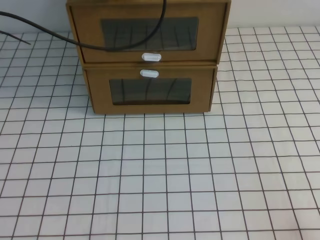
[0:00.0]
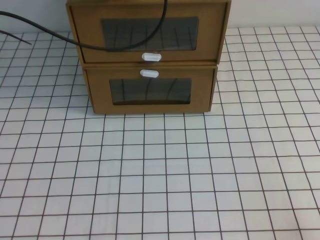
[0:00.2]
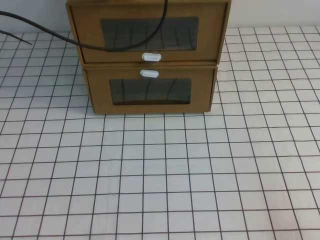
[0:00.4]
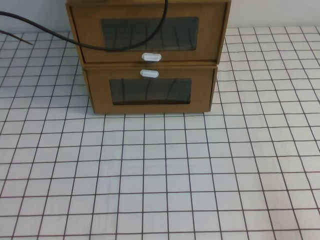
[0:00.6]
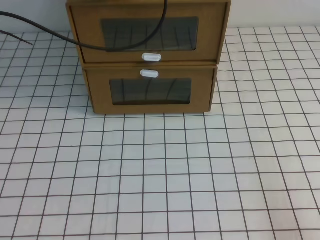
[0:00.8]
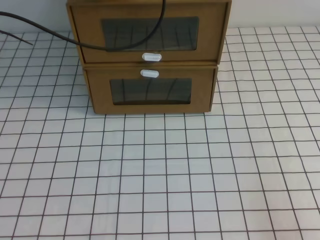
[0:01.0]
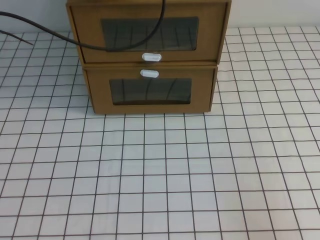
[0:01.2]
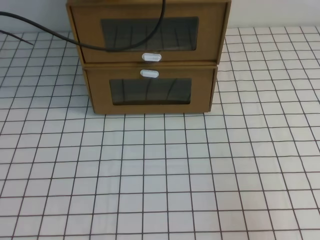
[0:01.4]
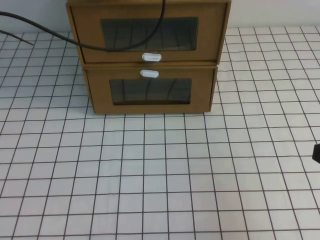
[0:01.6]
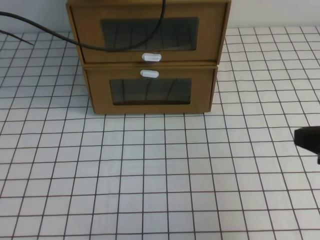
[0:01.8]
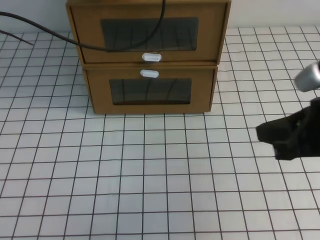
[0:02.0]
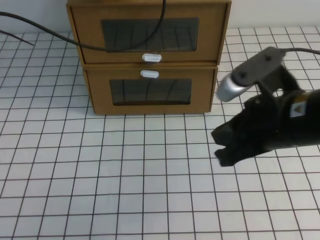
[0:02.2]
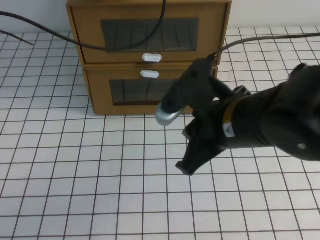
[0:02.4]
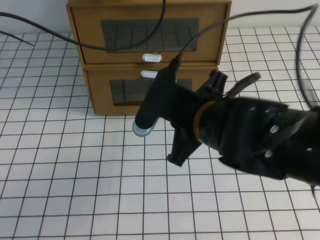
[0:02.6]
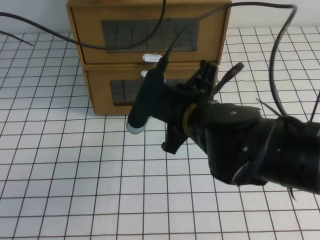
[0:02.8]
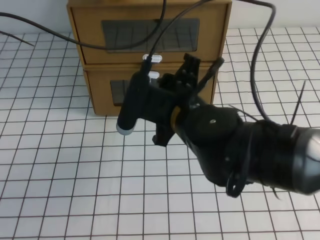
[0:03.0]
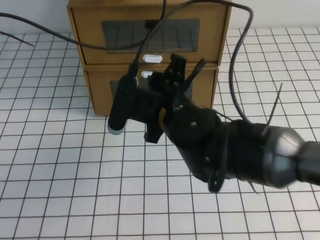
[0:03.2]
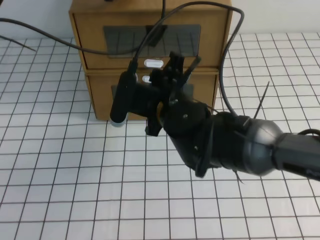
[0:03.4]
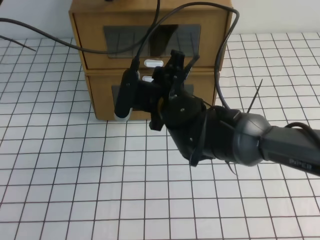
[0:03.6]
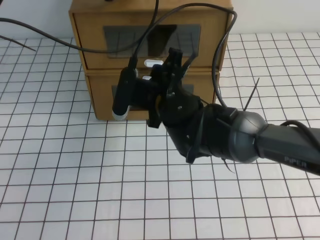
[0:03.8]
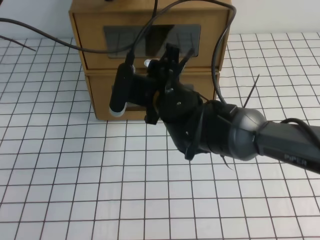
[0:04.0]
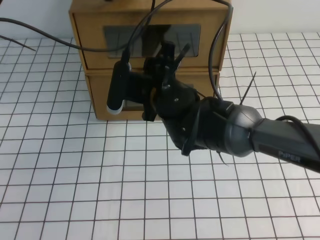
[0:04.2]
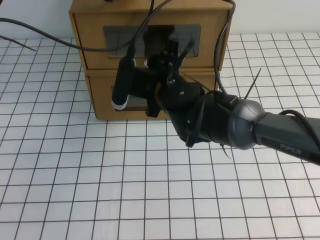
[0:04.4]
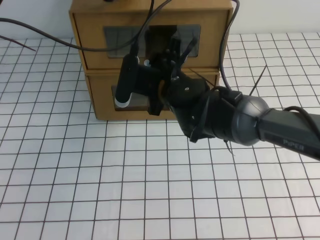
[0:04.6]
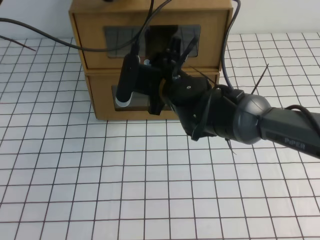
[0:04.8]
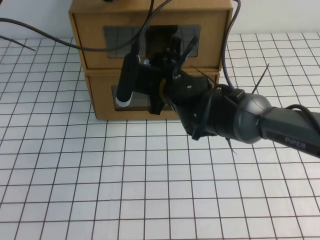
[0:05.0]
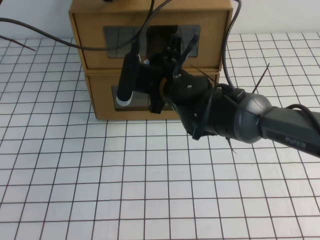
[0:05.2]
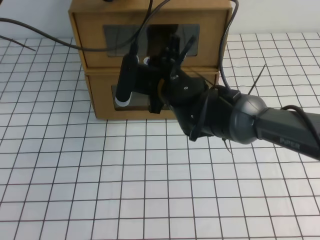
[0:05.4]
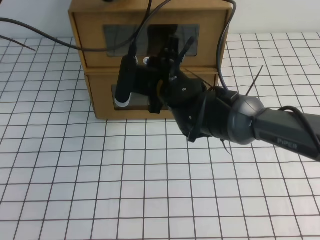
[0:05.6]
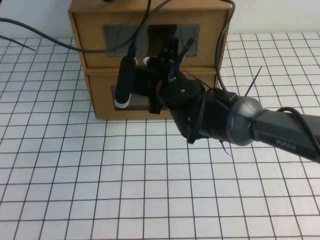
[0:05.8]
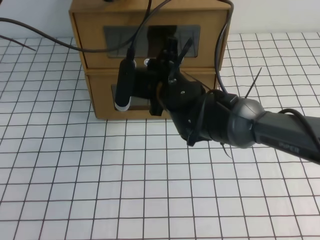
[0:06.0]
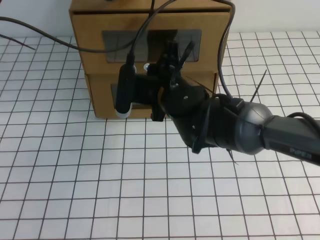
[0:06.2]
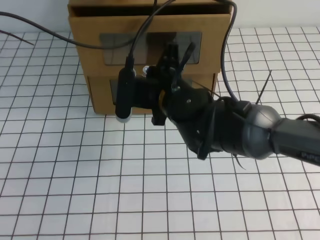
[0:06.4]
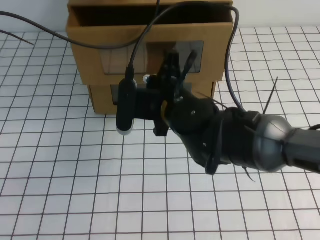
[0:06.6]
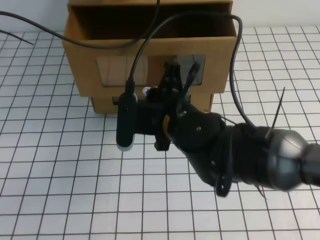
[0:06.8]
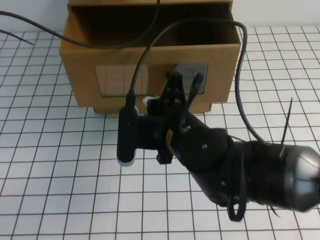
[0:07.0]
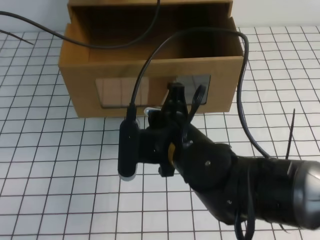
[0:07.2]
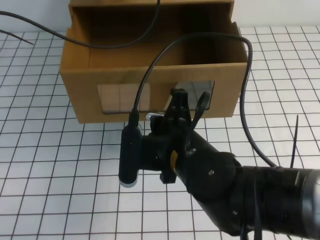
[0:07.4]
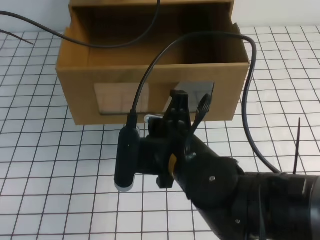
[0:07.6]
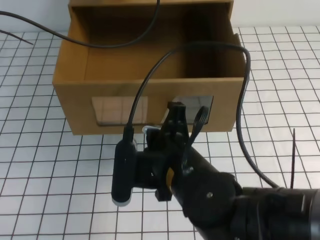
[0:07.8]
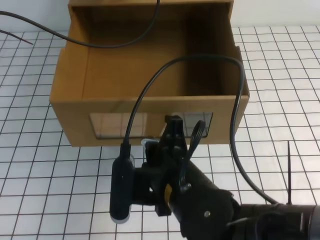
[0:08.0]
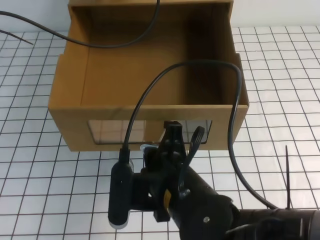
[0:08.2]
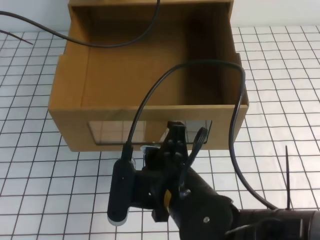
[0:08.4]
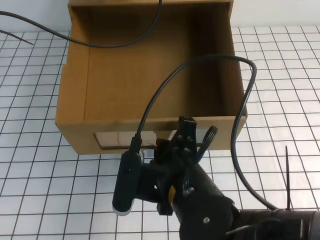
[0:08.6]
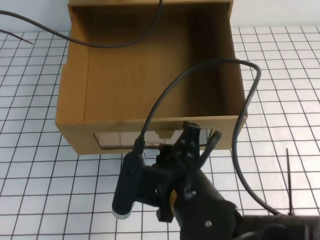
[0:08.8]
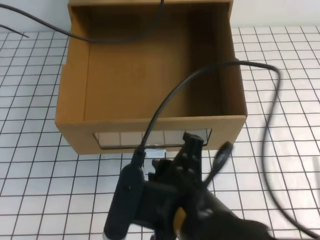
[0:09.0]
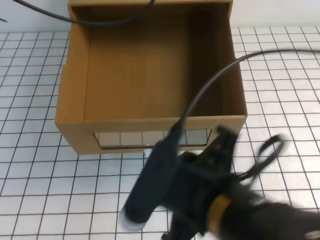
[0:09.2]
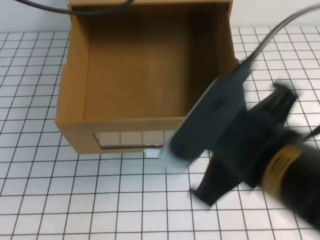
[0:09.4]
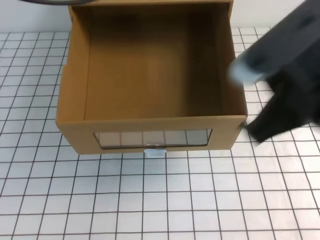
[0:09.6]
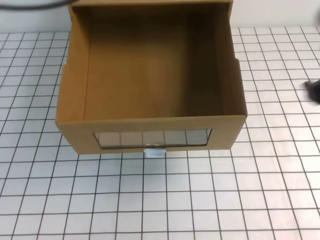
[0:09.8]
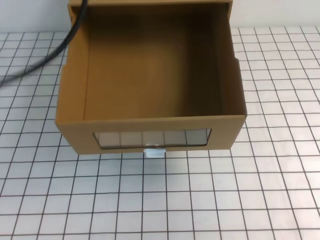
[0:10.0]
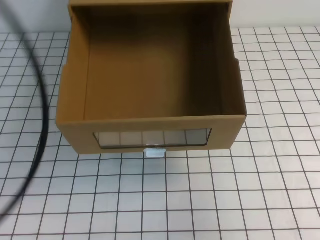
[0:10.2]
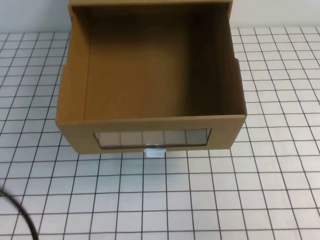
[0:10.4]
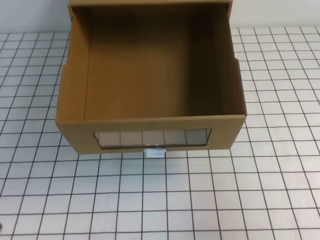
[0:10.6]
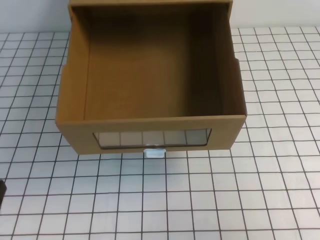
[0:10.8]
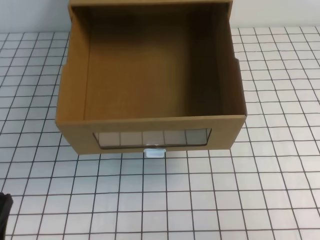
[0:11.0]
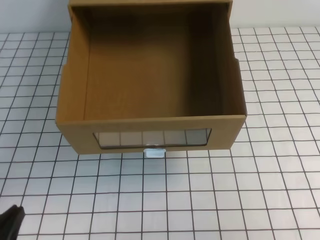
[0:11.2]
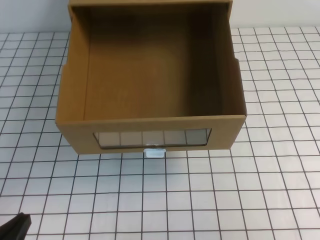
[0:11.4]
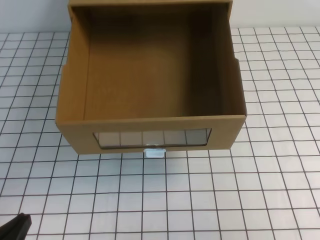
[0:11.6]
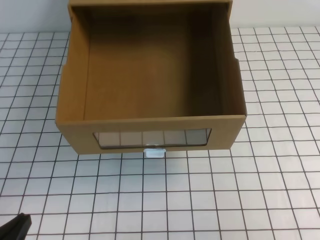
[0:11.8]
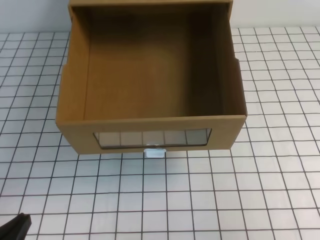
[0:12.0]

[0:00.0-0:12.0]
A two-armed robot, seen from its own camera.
Task of the whole recording: open the shoebox on the white tablecloth.
0:00.0 to 0:01.6: The right gripper is displaced upward and forward by approximately 15 cm.
0:01.6 to 0:03.0: The right gripper travels to the left and forward by about 30 cm, and opens.
0:03.0 to 0:04.4: The right gripper shifts some 10 cm forward, and opens.
0:04.4 to 0:06.0: The right gripper closes up.
0:06.0 to 0:07.6: The right gripper shifts approximately 15 cm backward.
0:07.6 to 0:09.0: The right gripper travels backward by about 5 cm, and opens up.
0:09.0 to 0:10.4: The right gripper is displaced to the right by some 25 cm, and closes up. The left gripper moves backward, approximately 30 cm.
0:10.4 to 0:12.0: The left gripper is displaced downward by roughly 25 cm.

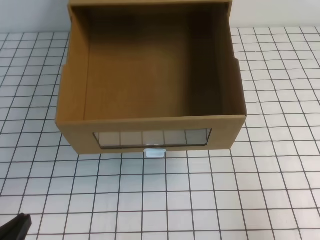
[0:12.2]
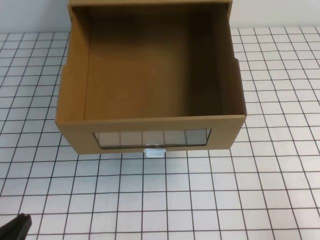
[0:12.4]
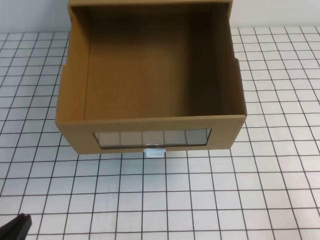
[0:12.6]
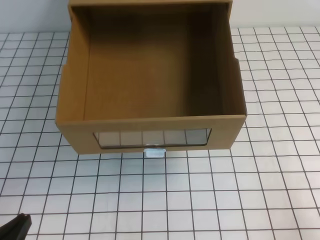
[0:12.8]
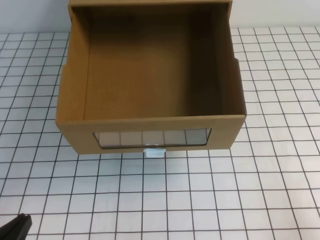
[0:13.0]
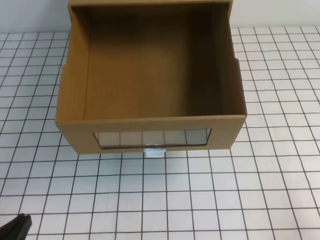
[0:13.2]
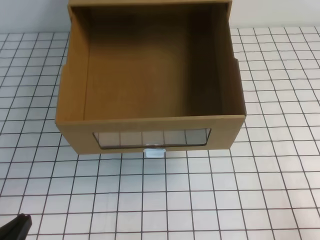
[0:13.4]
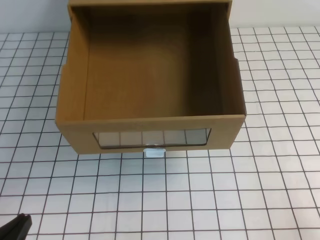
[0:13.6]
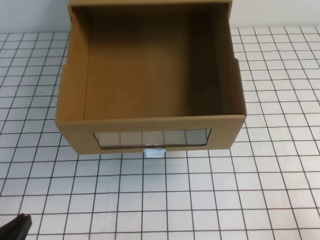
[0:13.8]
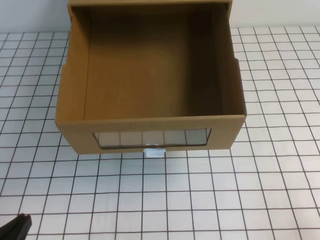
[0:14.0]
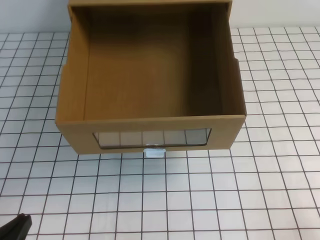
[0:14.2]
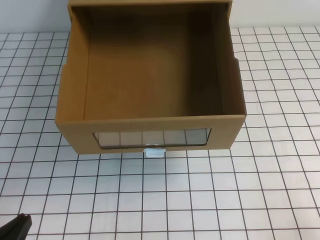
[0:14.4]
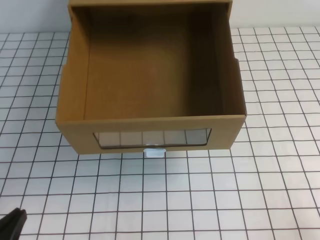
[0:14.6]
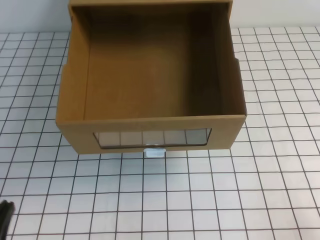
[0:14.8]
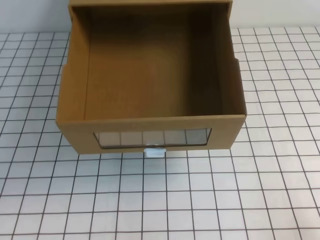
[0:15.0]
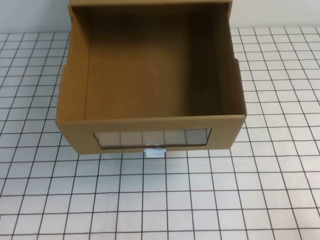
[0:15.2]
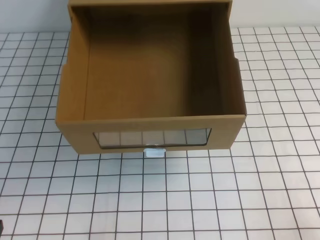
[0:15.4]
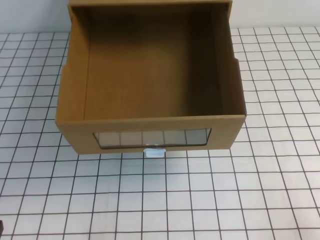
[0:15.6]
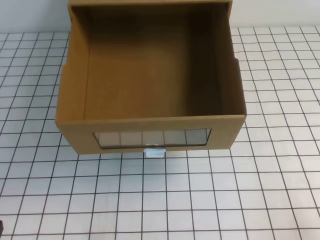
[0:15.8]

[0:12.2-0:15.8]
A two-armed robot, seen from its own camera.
Task of the whole recording: open the shoebox on the white tablecloth.
Step, 0:12.2 to 0:15.8: Open the shoe box.
0:12.2 to 0:14.0: The right gripper is displaced downward and backward by about 10 cm.
